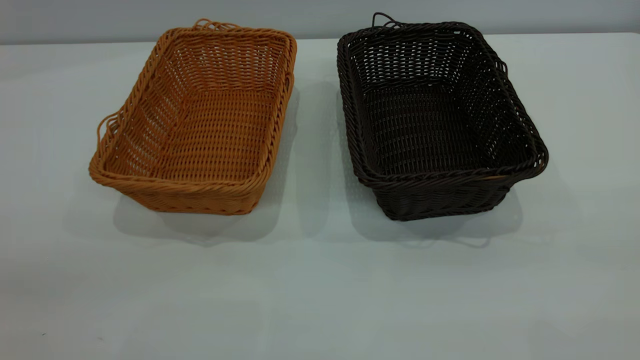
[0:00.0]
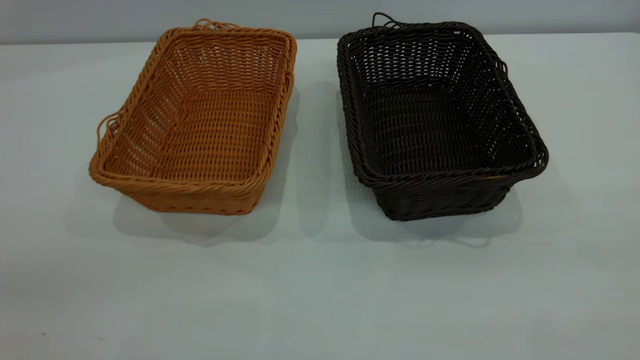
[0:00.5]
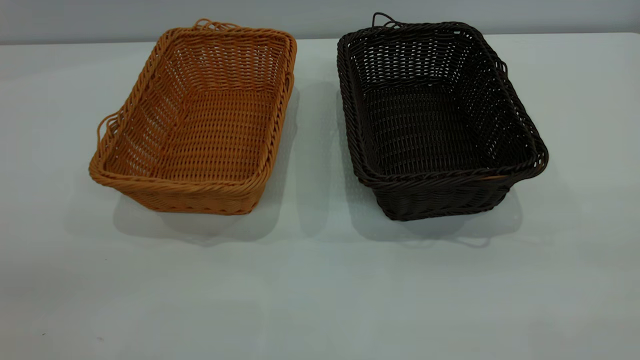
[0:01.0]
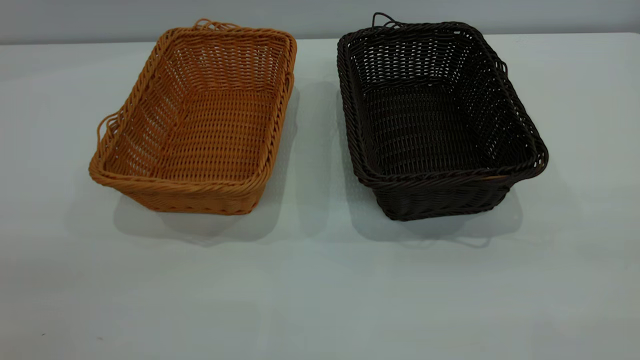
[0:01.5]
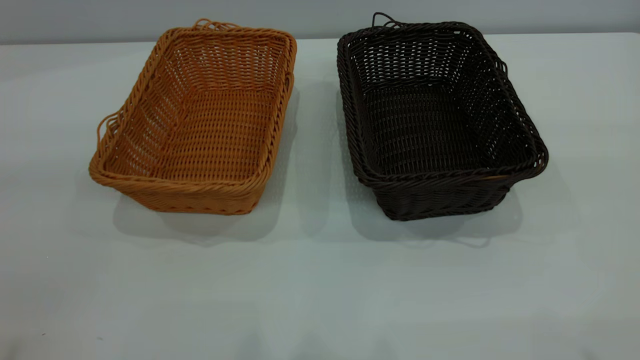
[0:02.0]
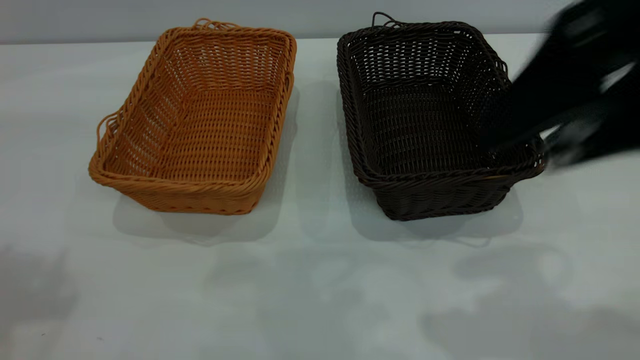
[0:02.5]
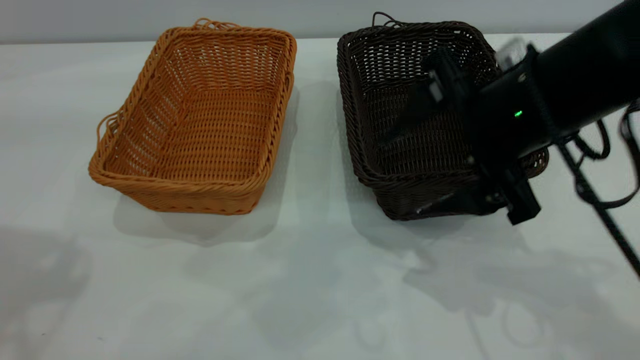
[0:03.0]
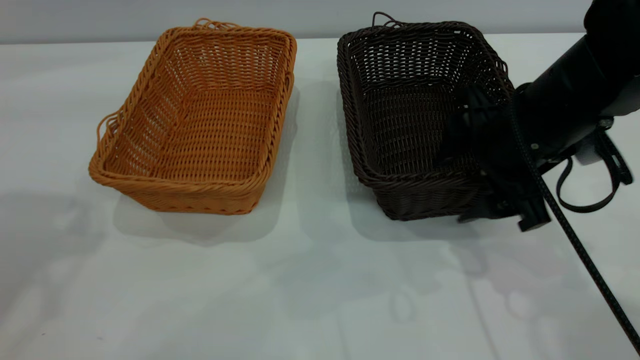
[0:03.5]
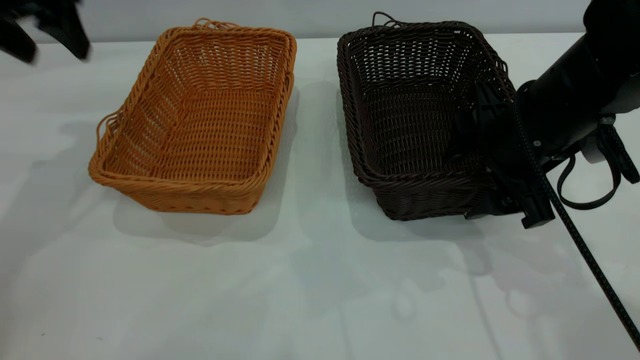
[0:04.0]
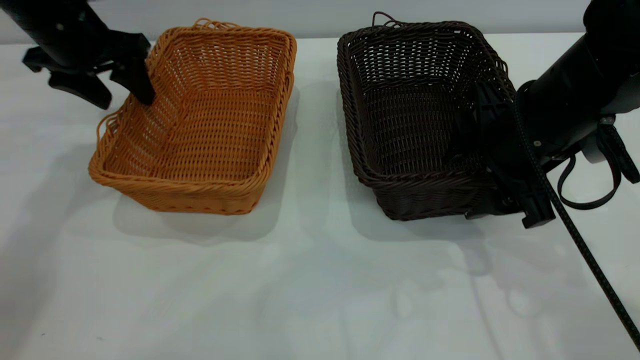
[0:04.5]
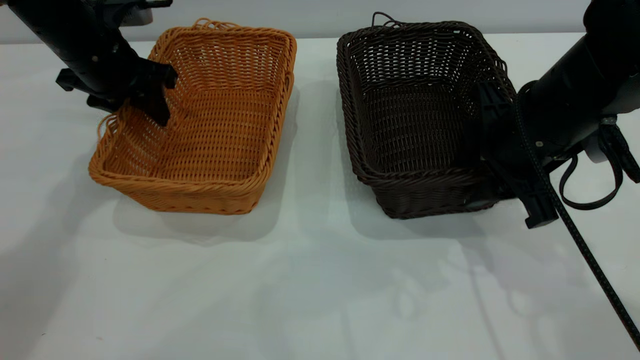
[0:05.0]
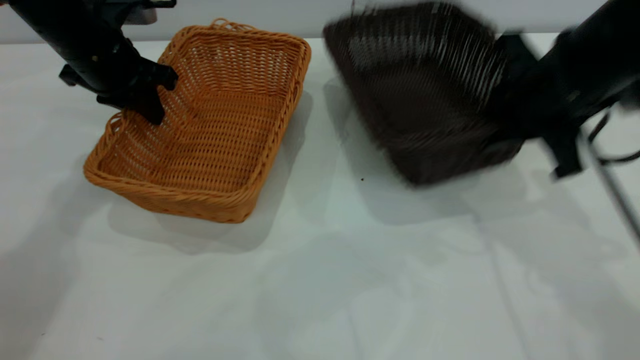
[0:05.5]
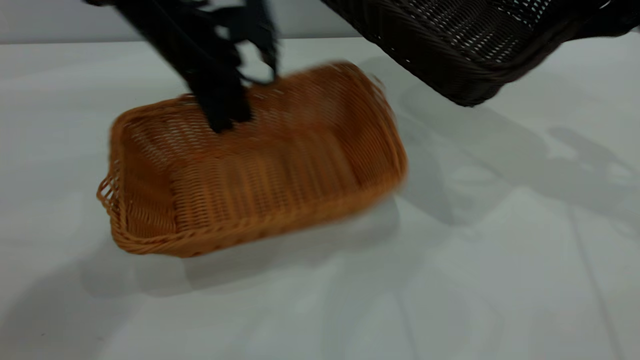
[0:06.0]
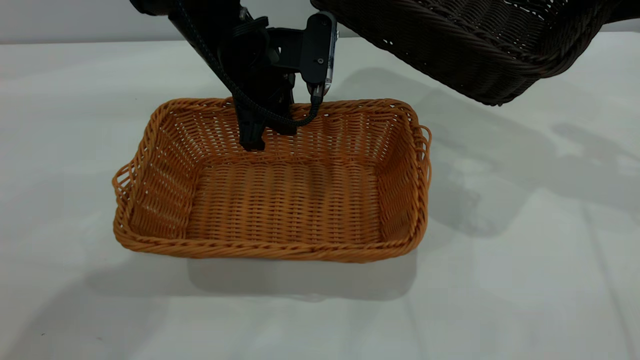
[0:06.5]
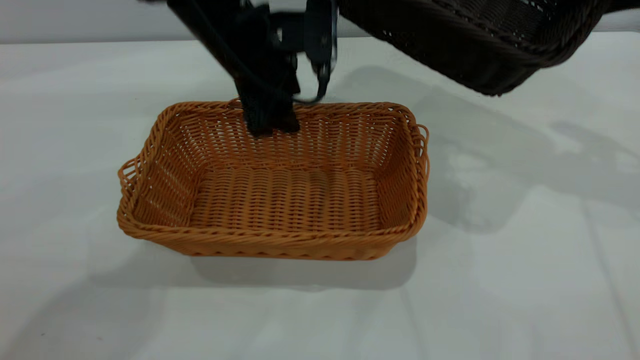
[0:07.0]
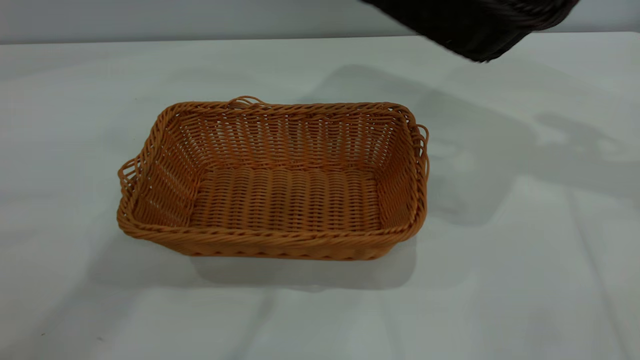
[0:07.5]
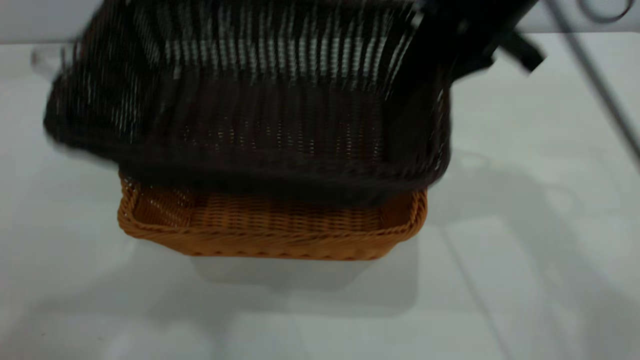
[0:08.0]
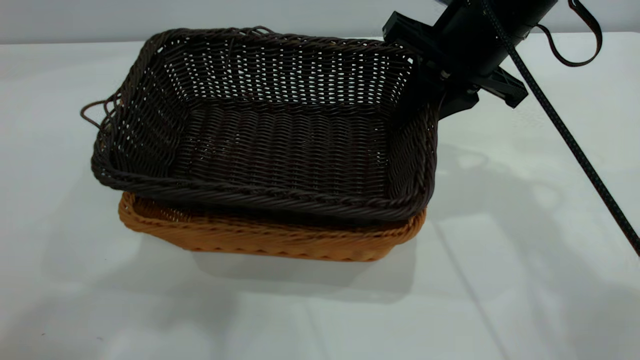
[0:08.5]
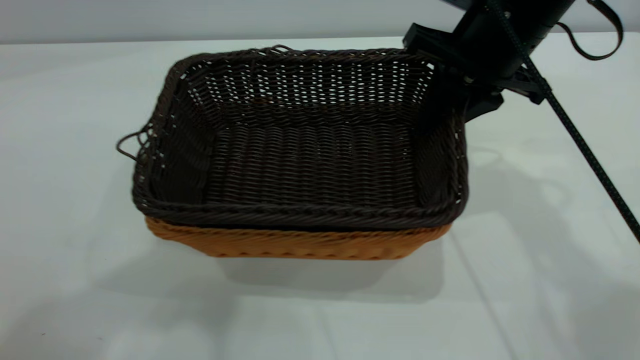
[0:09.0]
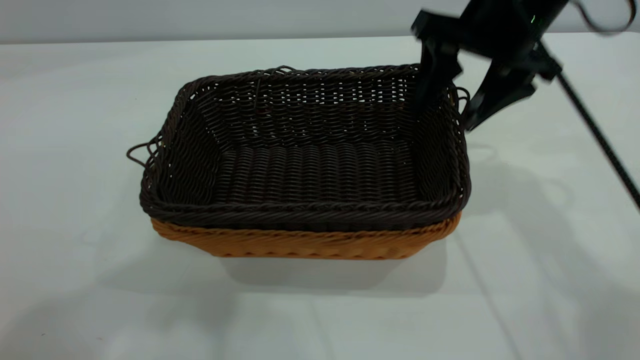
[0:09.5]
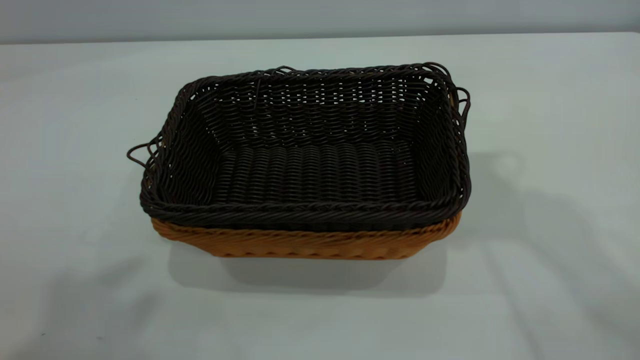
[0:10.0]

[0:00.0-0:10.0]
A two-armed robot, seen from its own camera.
Task of the whole recording: the left gripper grasp the brown basket and place it in the center of the table, the right gripper grasp the black basket and place it inside the brown one.
Step, 0:00.0 to 0:05.5: Pick up the light basket with the right gripper.
Step, 0:06.0 to 0:07.0: Place the light-colored basket in the center.
Step, 0:07.5 to 0:09.5: Place the dark basket on top of the light basket.
0:02.0 to 0:04.0: The left gripper moves forward and downward, some 35 cm. Meanwhile the right gripper moves downward and forward, roughly 35 cm.
0:04.0 to 0:06.0: The right gripper moves upward, to the right and forward, some 20 cm, and closes its fingers. Meanwhile the left gripper goes some 20 cm to the right and downward, and closes up.
0:06.0 to 0:08.0: The left gripper travels upward and backward by roughly 40 cm, and opens its fingers; the right gripper travels to the left by about 15 cm.
0:08.0 to 0:10.0: The left gripper travels backward, to the left and upward by some 10 cm. The right gripper is displaced upward by approximately 20 cm, and opens its fingers.

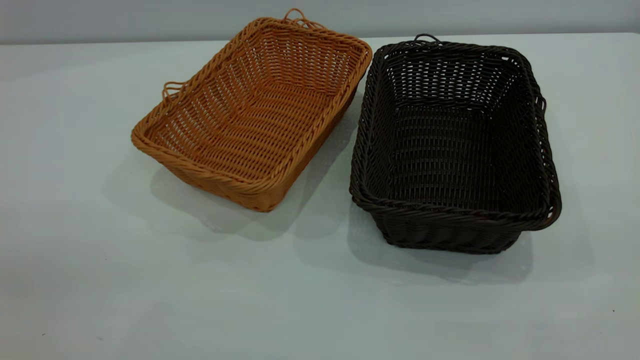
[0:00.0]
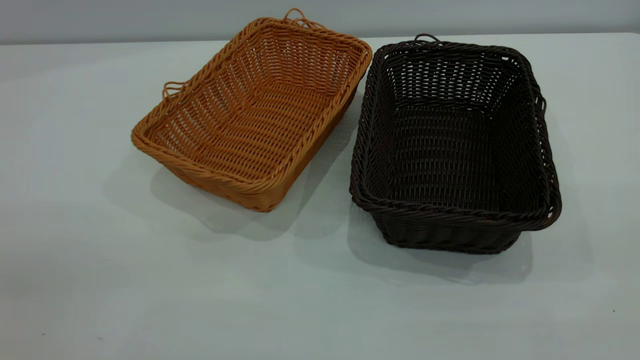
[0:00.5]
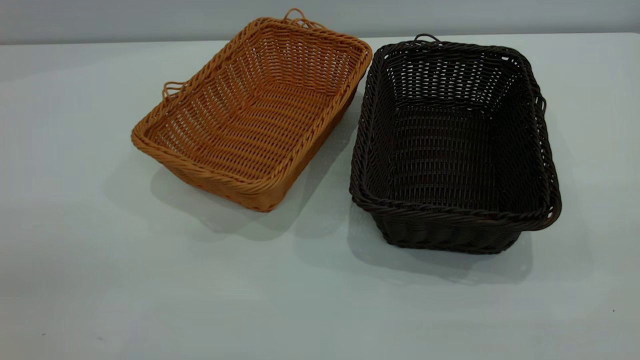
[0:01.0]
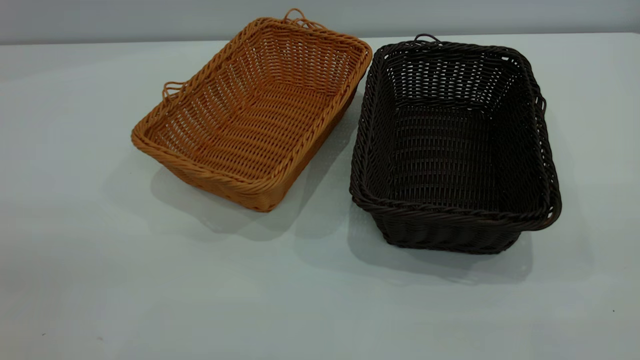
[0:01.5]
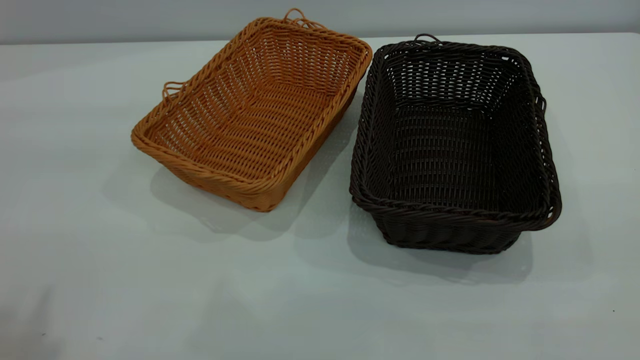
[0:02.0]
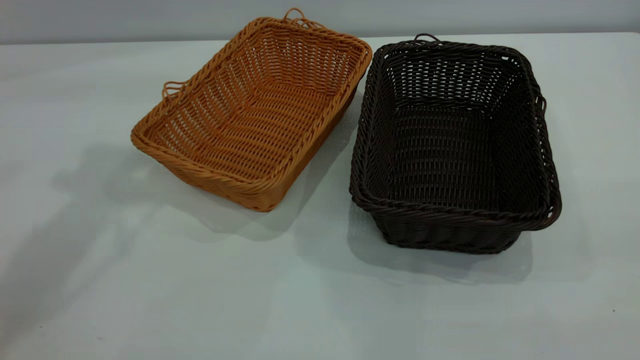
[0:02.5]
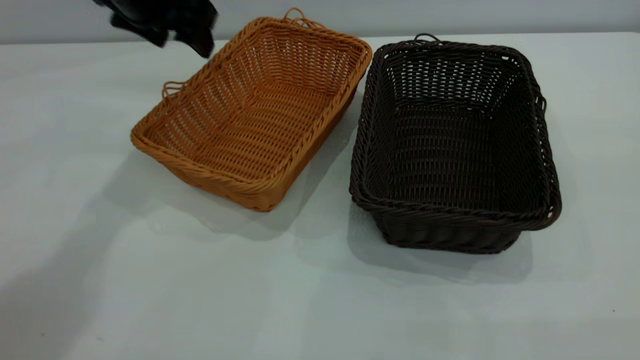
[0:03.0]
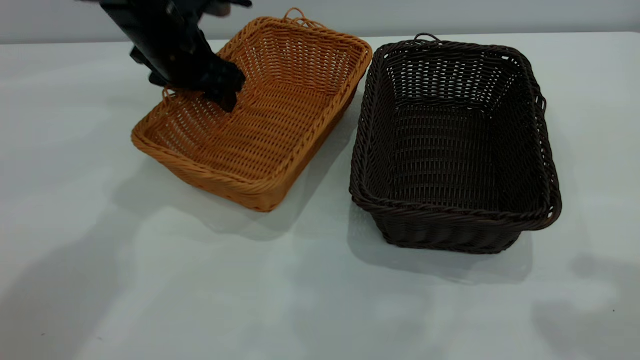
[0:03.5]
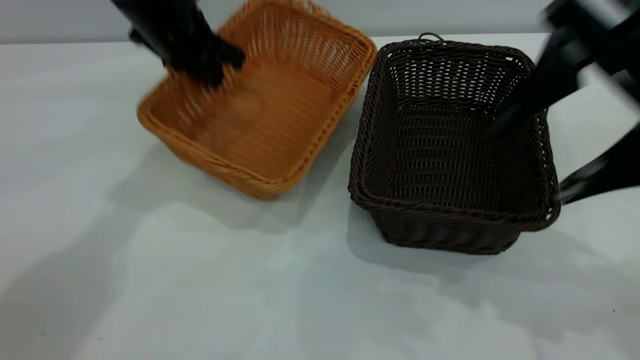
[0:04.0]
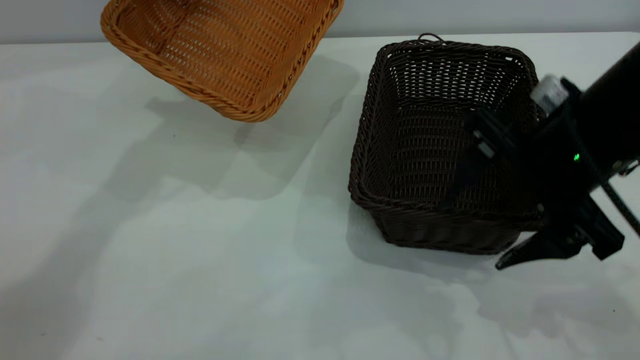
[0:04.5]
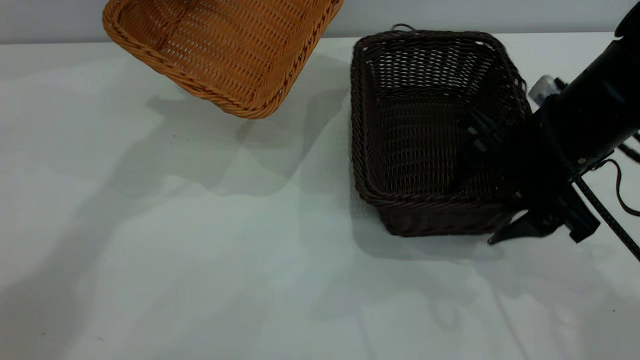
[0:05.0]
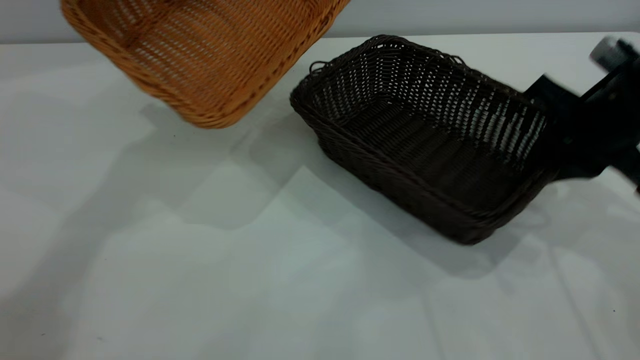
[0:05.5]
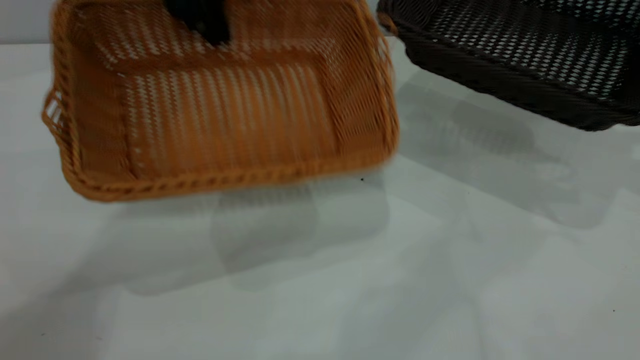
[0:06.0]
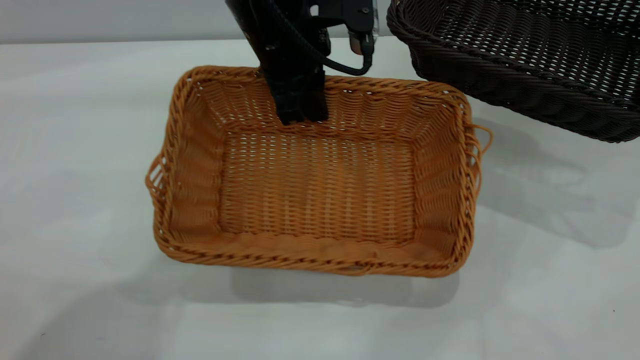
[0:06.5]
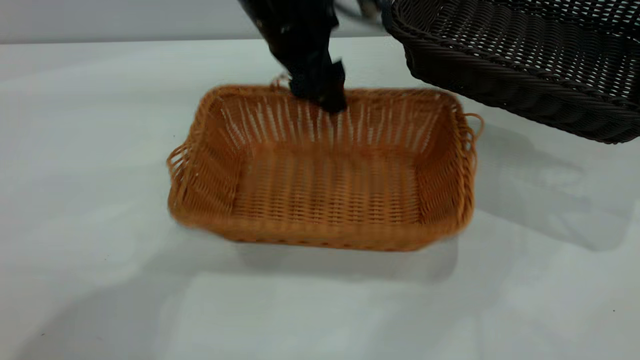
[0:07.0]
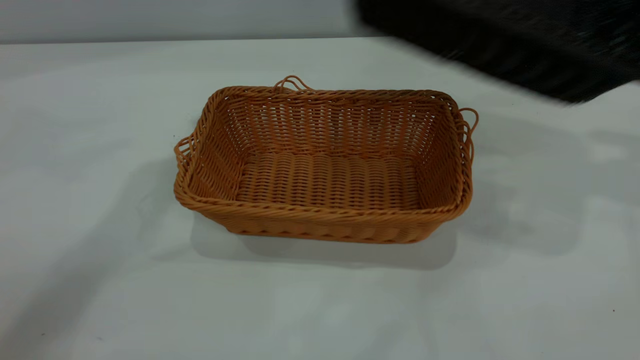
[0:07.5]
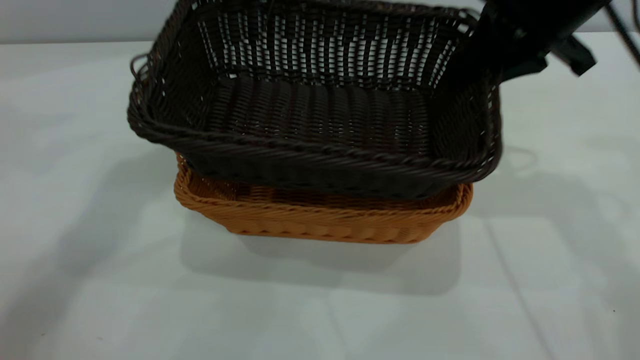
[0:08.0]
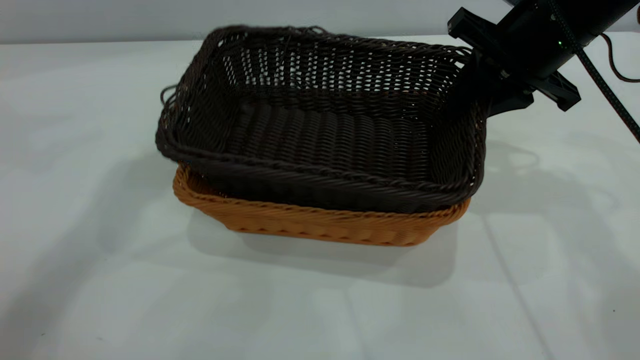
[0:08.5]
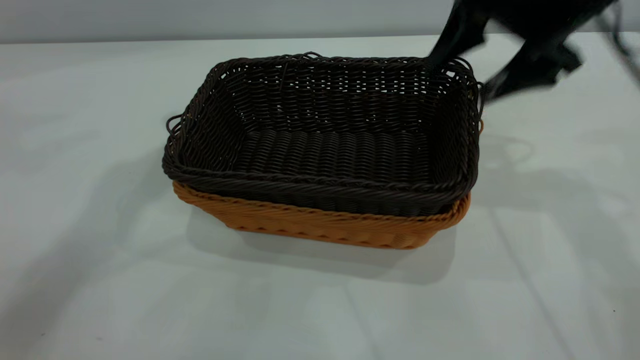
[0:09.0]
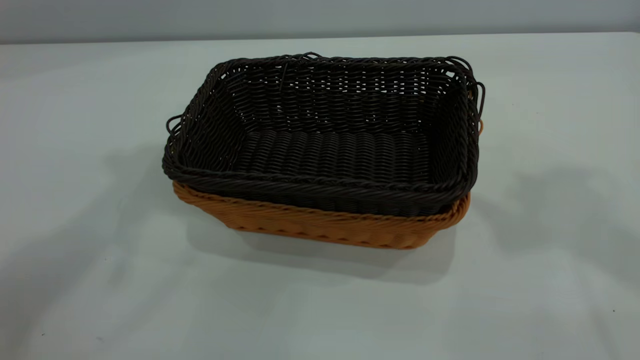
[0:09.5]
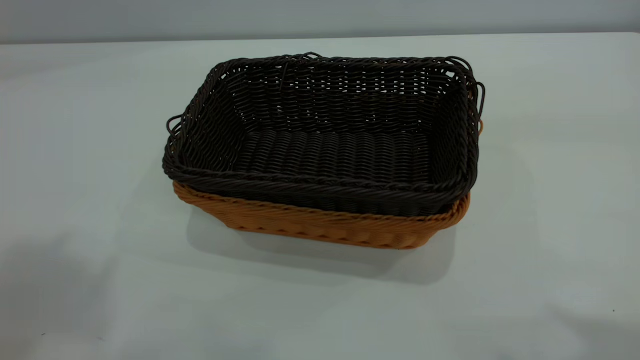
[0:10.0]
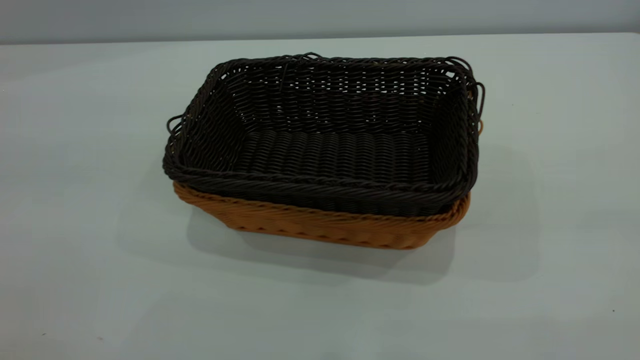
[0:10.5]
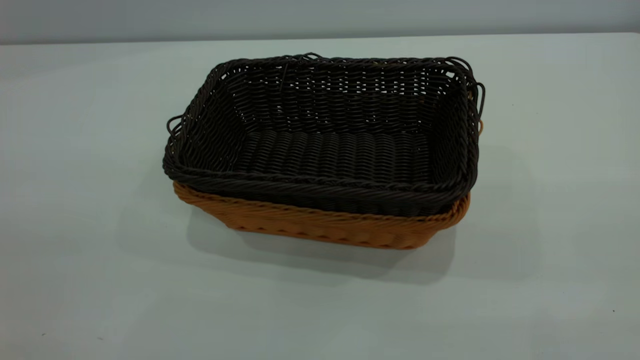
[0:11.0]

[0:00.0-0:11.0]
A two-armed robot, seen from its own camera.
Task of the whole recording: the left gripper grasp the brown basket and place it in the center of the table, the right gripper grasp the black basket and place it inside the brown one.
Step, 0:00.0 to 0:05.5: Pick up the light basket with the right gripper.
Step, 0:06.0 to 0:07.0: Place the light-colored basket in the center.
Step, 0:07.5 to 0:09.0: Place the dark basket on top of the light basket.
0:02.0 to 0:03.5: The left gripper is displaced forward, downward and to the right by approximately 40 cm; the right gripper goes some 20 cm forward.
0:03.5 to 0:05.5: The right gripper goes approximately 25 cm downward and forward, and closes up; the left gripper travels upward by approximately 15 cm, and closes up.
0:05.5 to 0:07.5: The left gripper is displaced upward by approximately 5 cm, and opens its fingers. Meanwhile the right gripper moves upward, about 15 cm.
0:07.5 to 0:09.0: The right gripper moves to the left, roughly 10 cm, and opens.
0:09.0 to 0:11.0: Both grippers travel together backward, some 40 cm.
